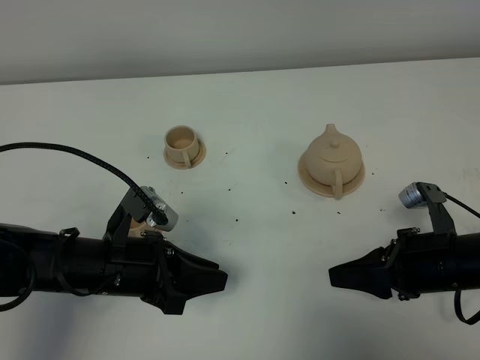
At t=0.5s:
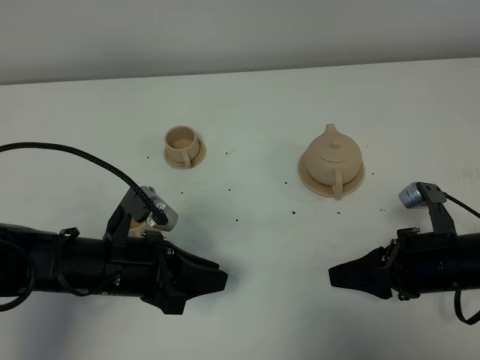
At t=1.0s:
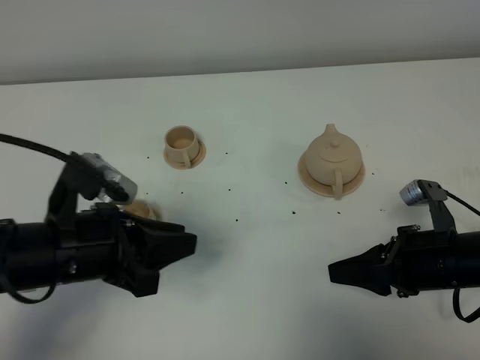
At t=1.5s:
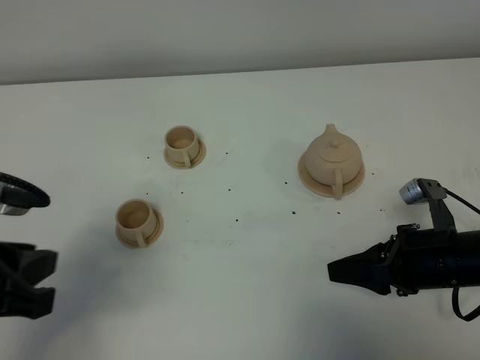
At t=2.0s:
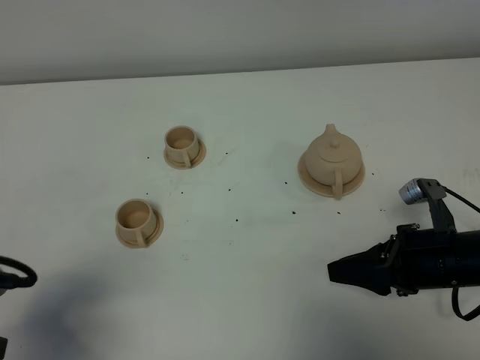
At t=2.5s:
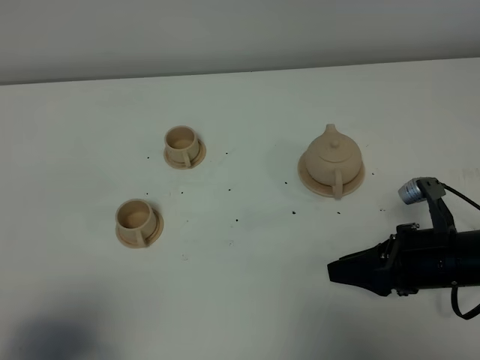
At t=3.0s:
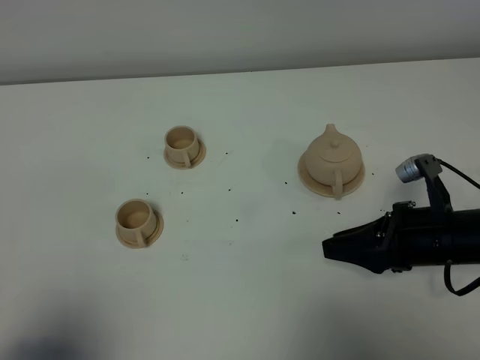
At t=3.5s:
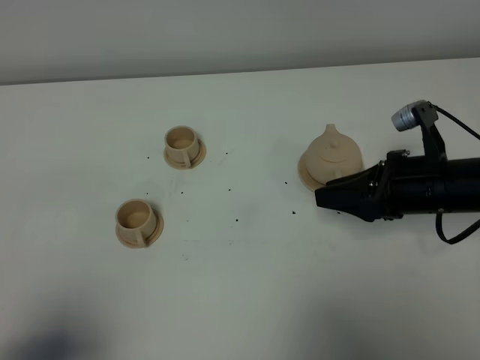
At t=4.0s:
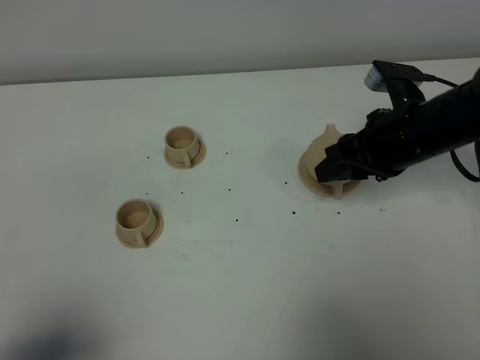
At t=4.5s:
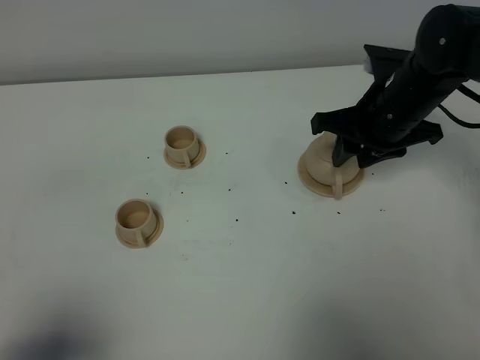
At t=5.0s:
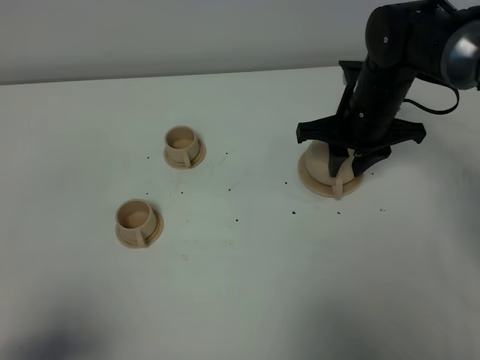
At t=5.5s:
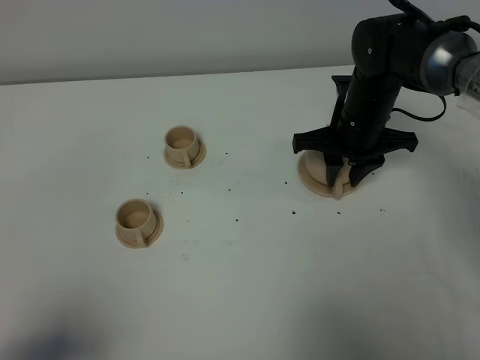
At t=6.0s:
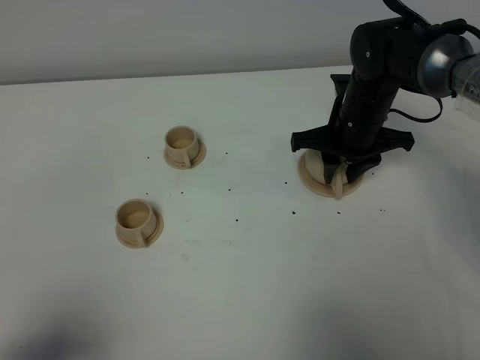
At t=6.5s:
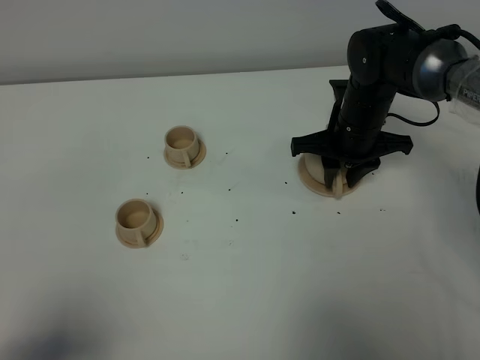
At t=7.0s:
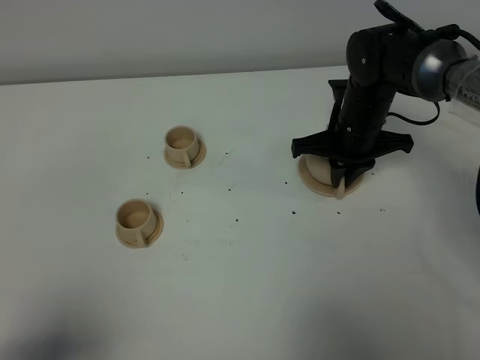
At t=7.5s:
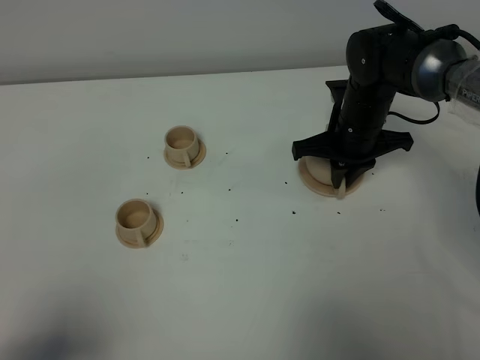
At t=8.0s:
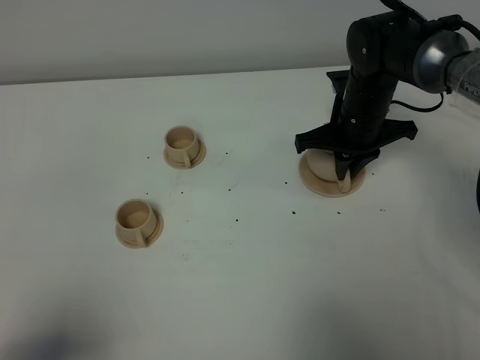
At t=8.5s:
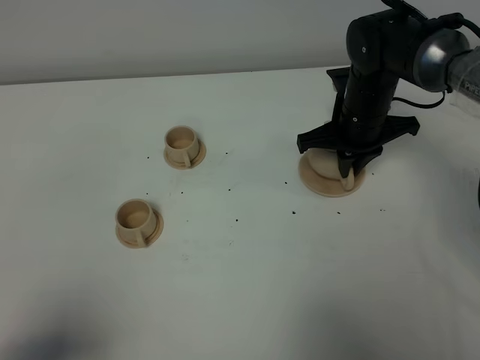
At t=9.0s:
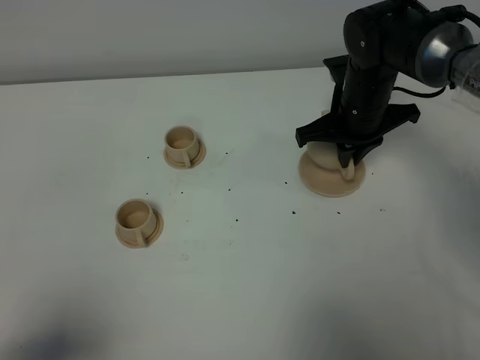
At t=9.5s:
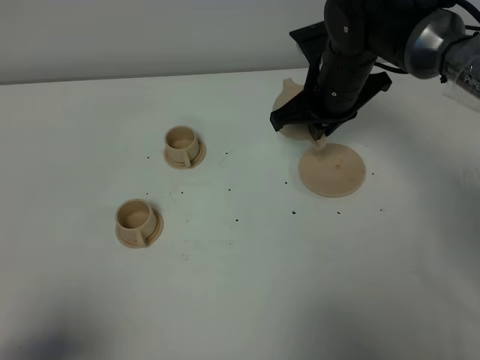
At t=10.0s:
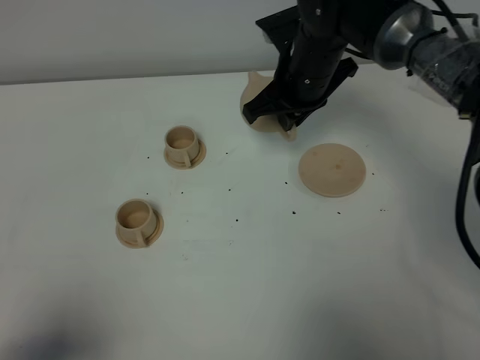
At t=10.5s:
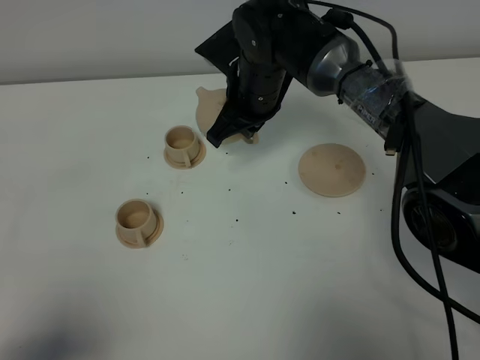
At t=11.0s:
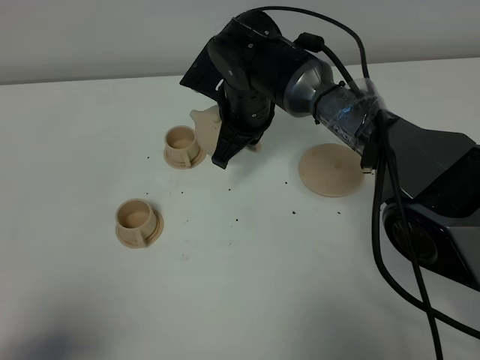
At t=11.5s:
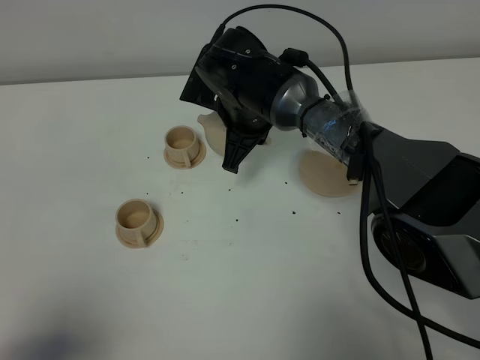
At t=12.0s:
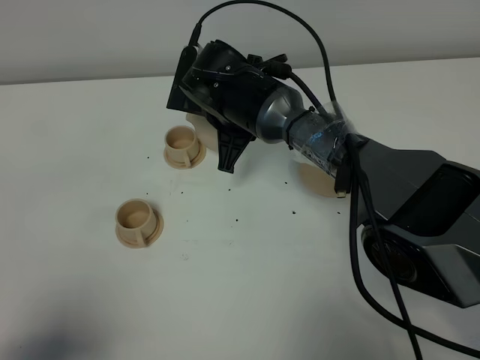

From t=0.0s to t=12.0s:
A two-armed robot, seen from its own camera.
Task of the whole recording: grasp the brown teapot and pour the tea into the two brown teacups one by one, put the brown teapot back in its original place.
Step, from t=0.0s to t=8.5s: Pick up the teapot with the right gripper.
From t=0.0s to t=2.0s: The left gripper heads backward, upward and to the left, covering approximately 20 cm.
From t=2.0s to t=4.0s: The right gripper heads forward and upward, covering some 15 cm. The left gripper moves backward, about 10 cm.
From t=4.0s to t=6.0s: The right gripper shifts roughly 10 cm forward, downward and to the left.
From t=6.0s to t=8.0s: The right gripper closes its fingers.
From t=8.0s to t=10.0s: The right gripper is displaced to the left and upward by about 10 cm.
From t=10.0s to t=12.0s: The right gripper travels to the left and downward by approximately 10 cm.

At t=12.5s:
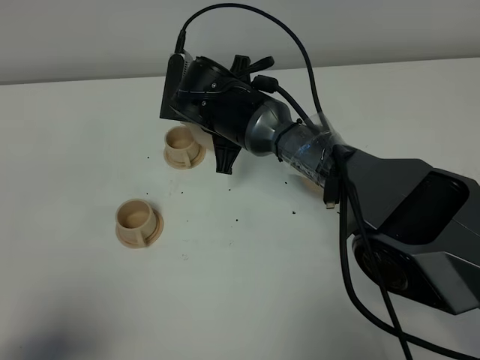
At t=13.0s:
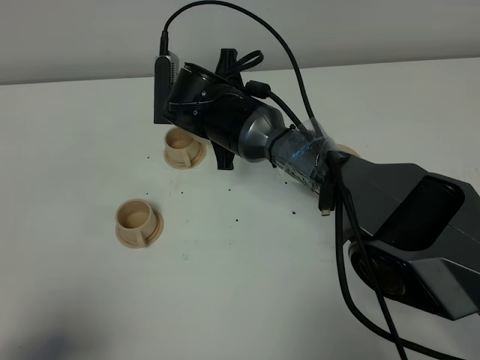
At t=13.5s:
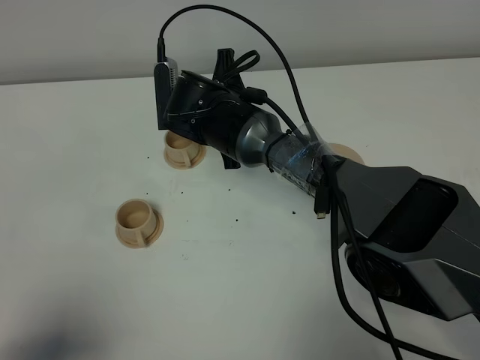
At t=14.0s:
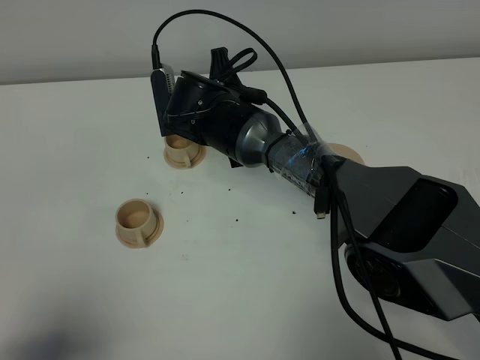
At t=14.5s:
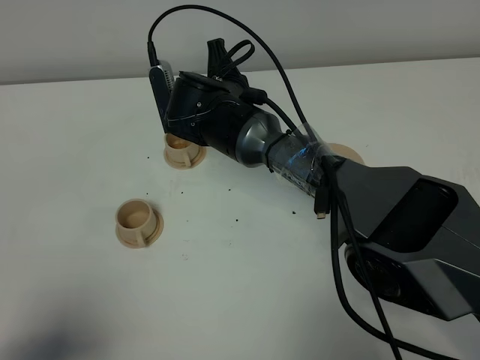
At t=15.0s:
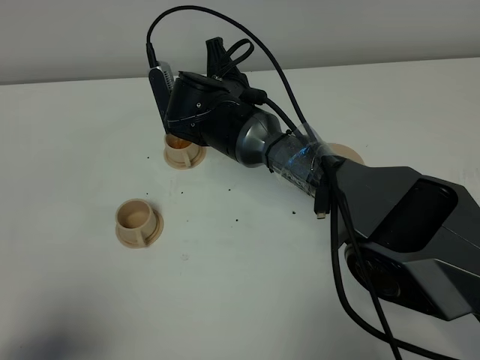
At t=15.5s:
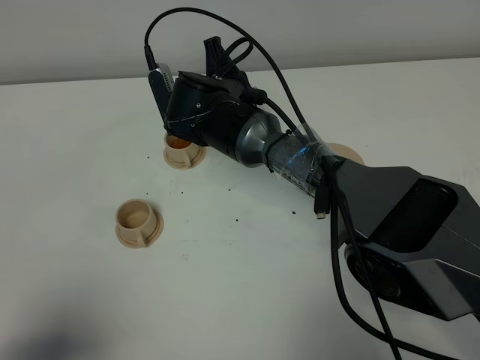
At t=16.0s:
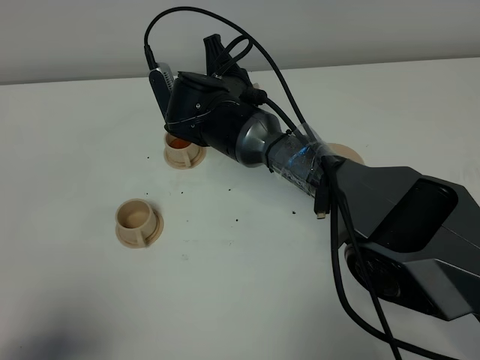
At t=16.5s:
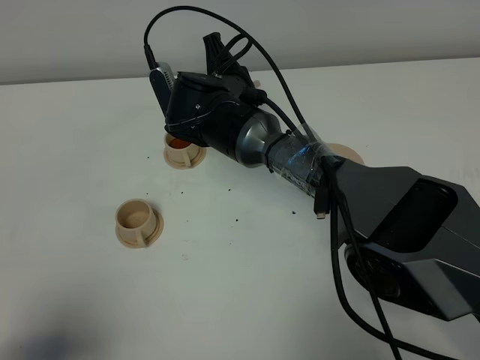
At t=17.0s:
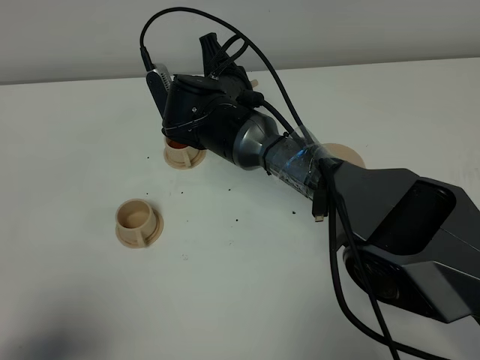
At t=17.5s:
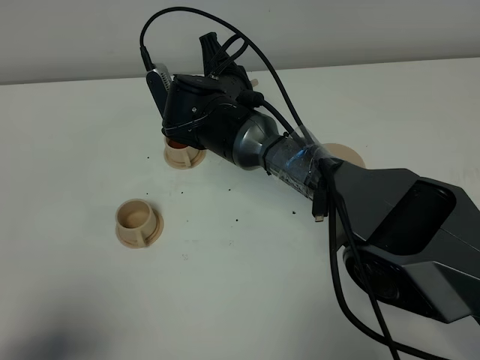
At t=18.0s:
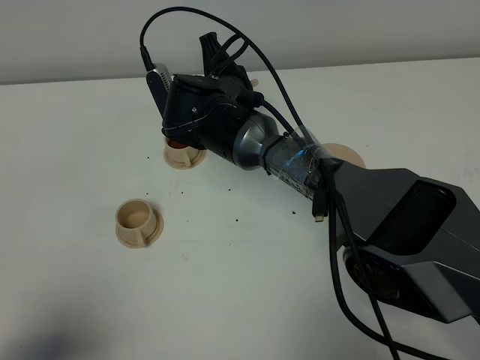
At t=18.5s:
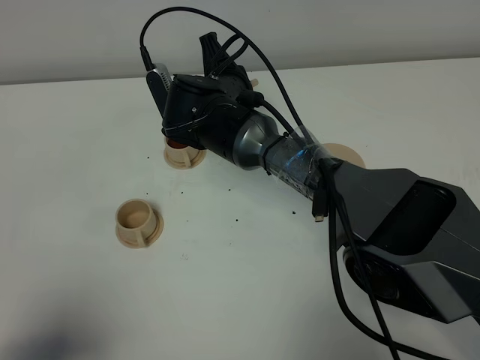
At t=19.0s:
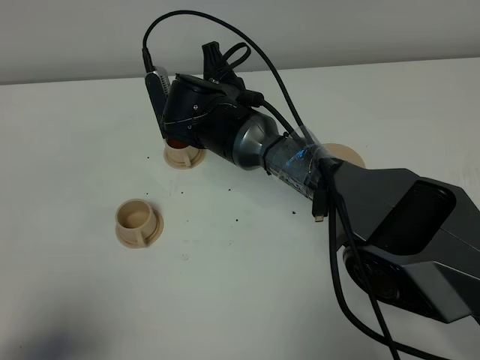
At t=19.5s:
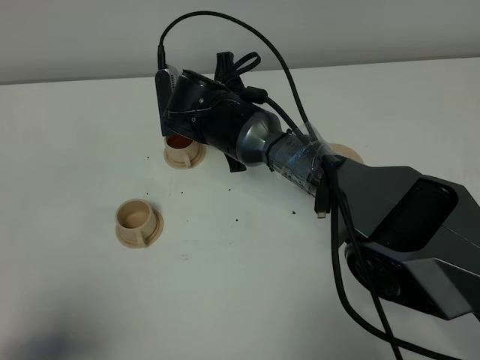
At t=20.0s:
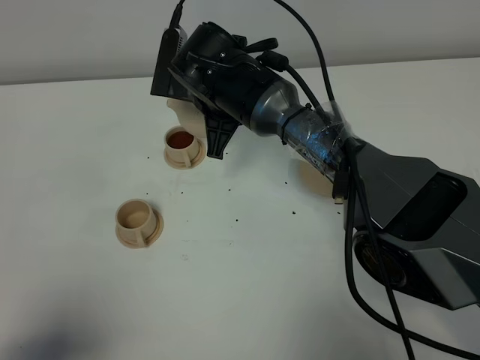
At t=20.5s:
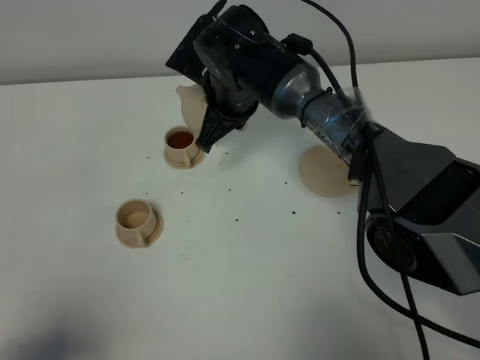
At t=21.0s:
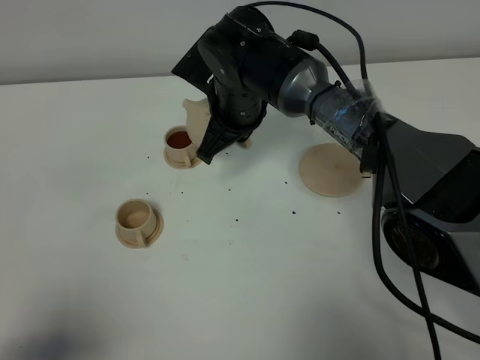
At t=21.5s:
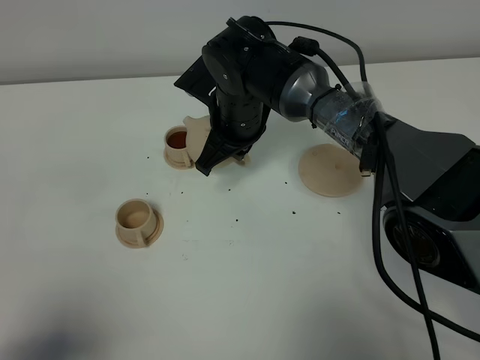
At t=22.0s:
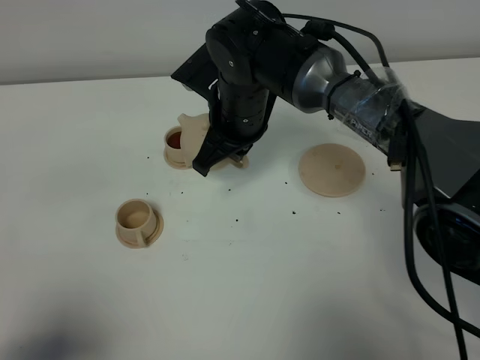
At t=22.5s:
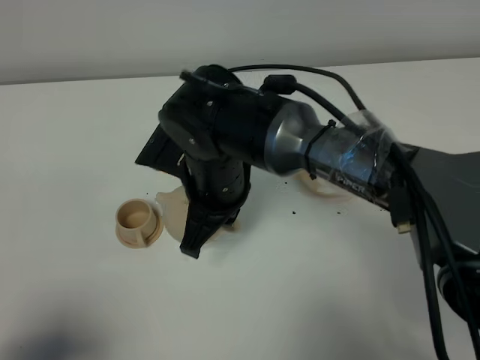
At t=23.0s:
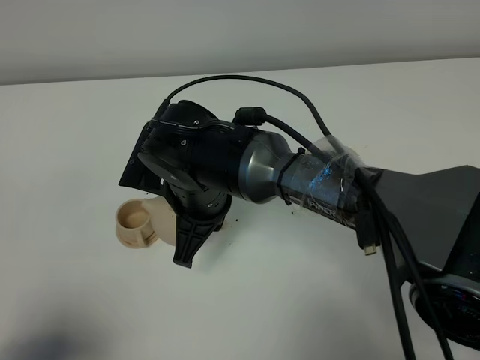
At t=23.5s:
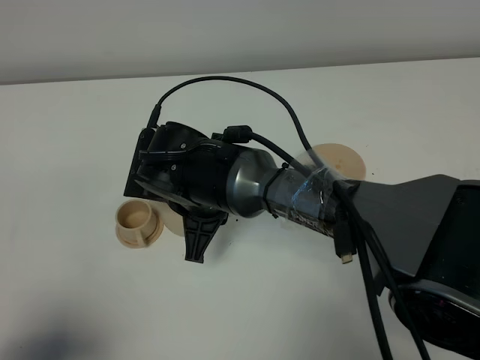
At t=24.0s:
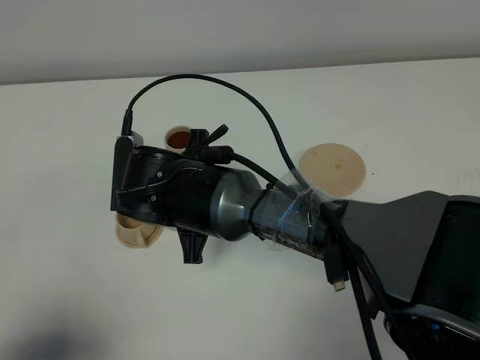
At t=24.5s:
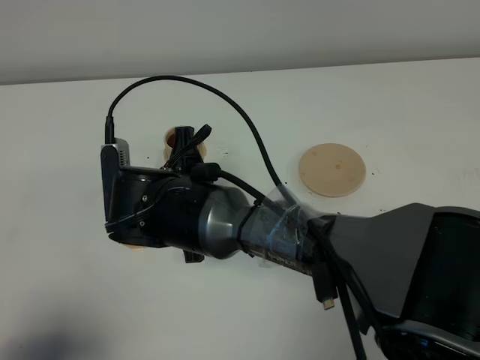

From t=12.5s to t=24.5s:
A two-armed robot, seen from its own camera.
Task of the whole recording: grasp the brown teapot and pour the tea into the two brown teacups one by one, put the brown teapot back in its original place.
From t=14.5s to t=16.5s: The grippers stay close to where they were, moving slightly.
From t=16.5s to t=18.5s: Neither gripper changes place.
From t=20.5s to t=22.5s: The right gripper travels backward by some 15 cm.
From t=22.5s to t=24.5s: The right gripper ends up about 5 cm from where it was.

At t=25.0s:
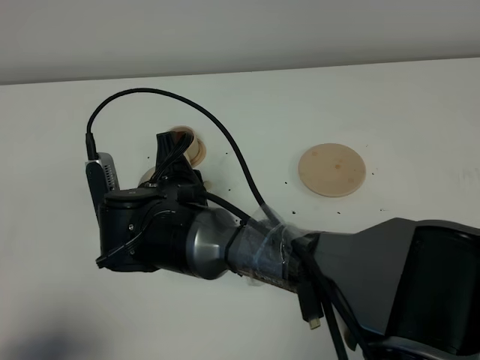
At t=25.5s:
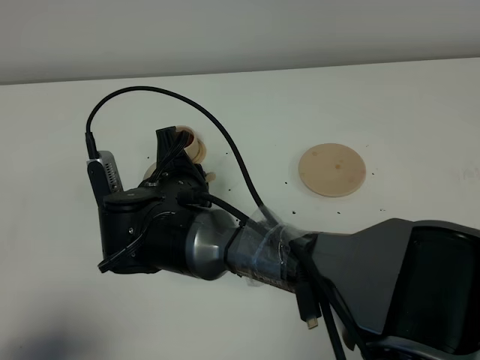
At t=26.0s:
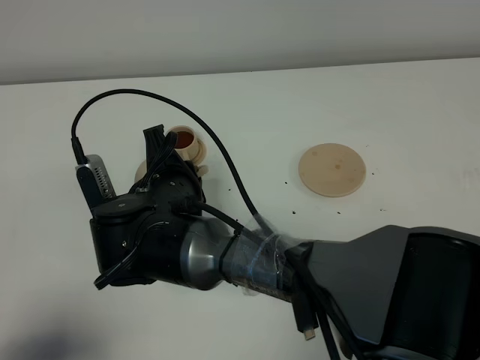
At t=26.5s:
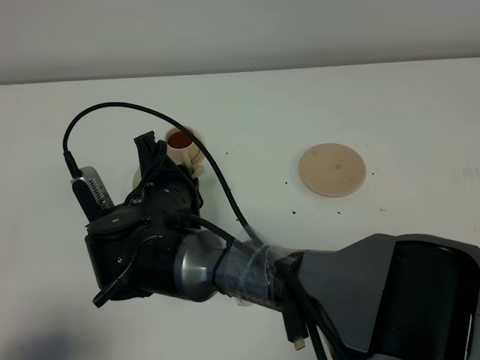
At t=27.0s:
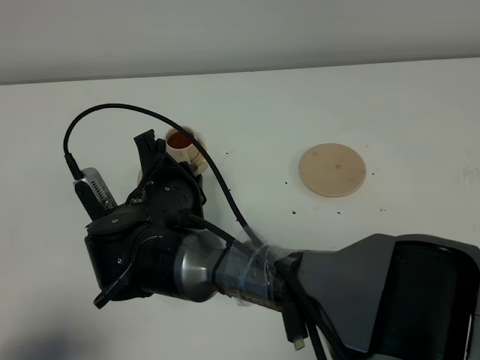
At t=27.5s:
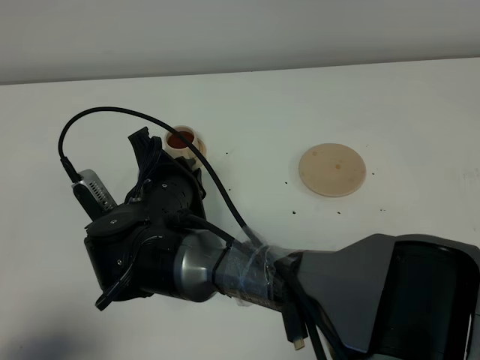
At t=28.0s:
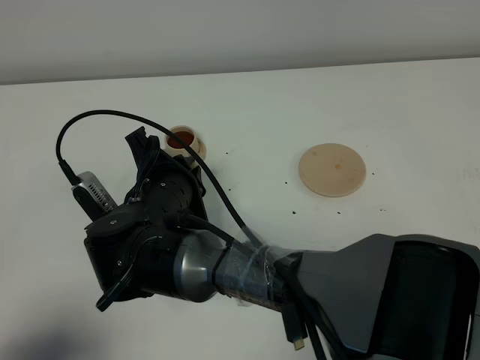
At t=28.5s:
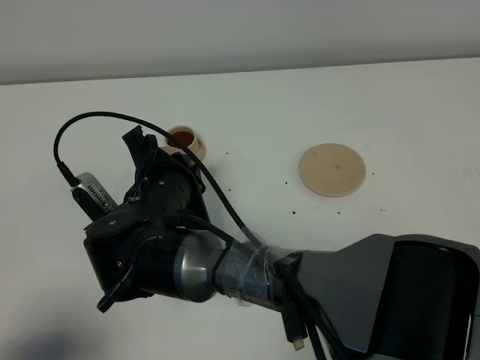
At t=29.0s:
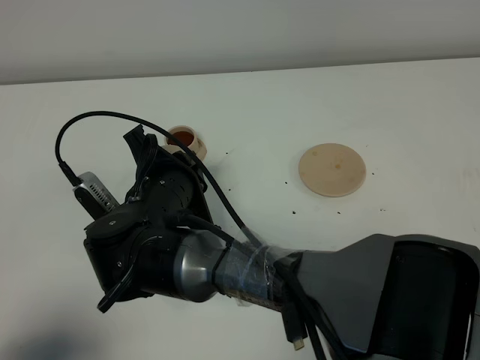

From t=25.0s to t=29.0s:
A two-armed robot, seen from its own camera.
Task of the whole recording: grasp the brown teapot and pour the tea into the two brown teacups one by one, put the brown teapot back in its original place.
From t=25.0s to t=27.0s: The grippers make only small movements.
From t=27.0s to t=29.0s: There are only small adjustments of the grippers.
